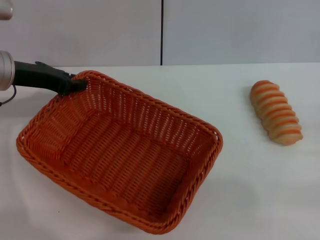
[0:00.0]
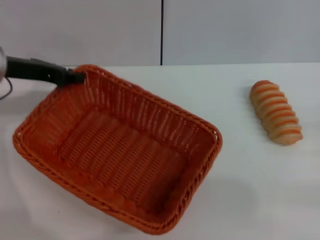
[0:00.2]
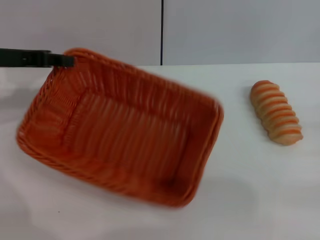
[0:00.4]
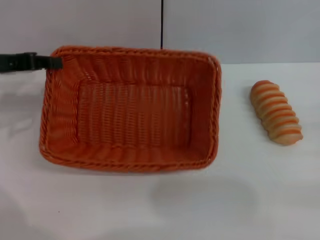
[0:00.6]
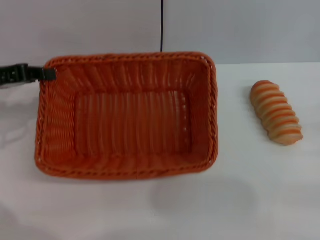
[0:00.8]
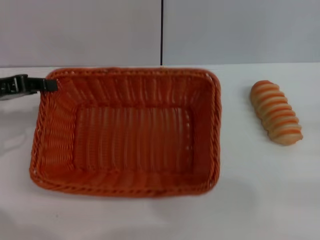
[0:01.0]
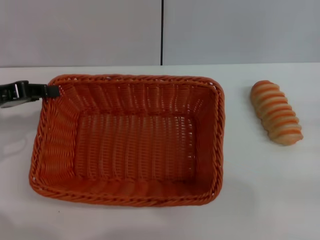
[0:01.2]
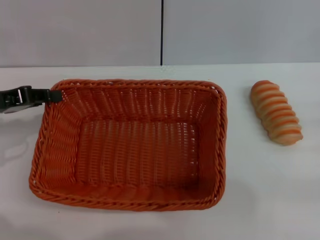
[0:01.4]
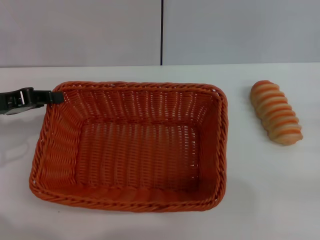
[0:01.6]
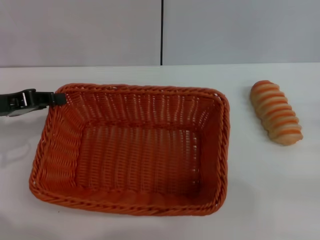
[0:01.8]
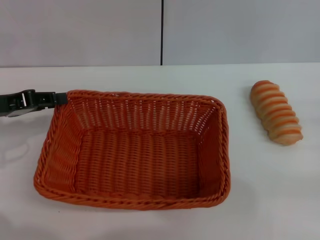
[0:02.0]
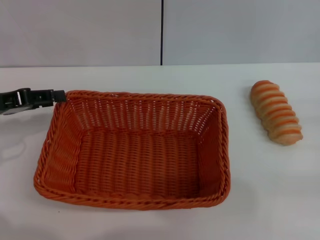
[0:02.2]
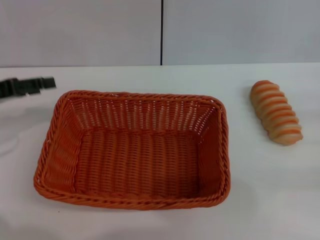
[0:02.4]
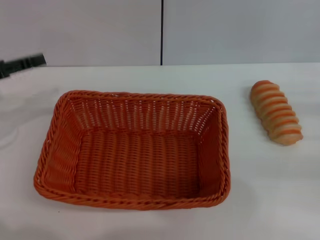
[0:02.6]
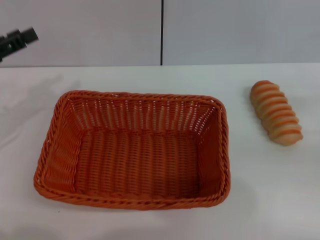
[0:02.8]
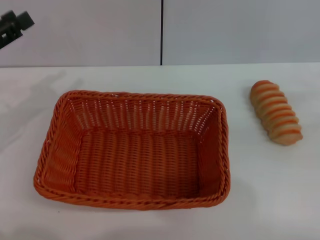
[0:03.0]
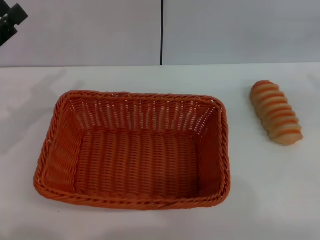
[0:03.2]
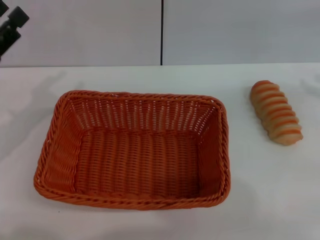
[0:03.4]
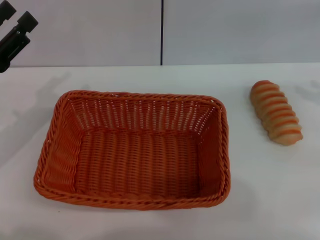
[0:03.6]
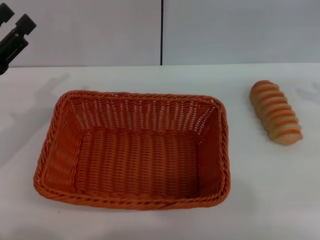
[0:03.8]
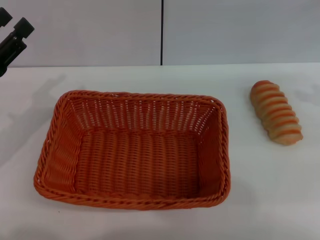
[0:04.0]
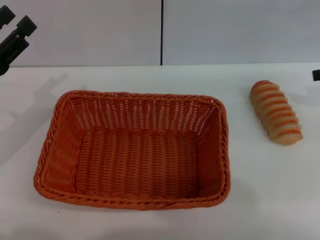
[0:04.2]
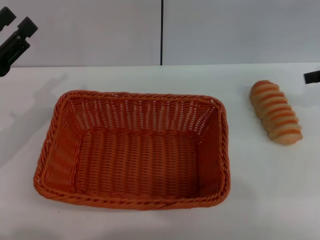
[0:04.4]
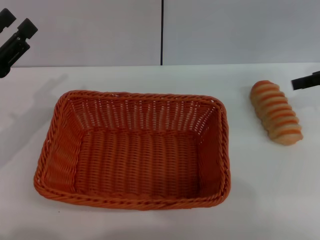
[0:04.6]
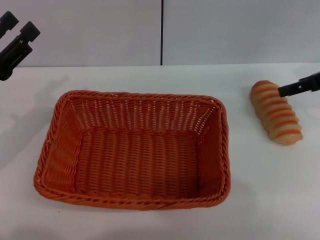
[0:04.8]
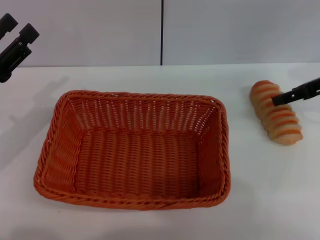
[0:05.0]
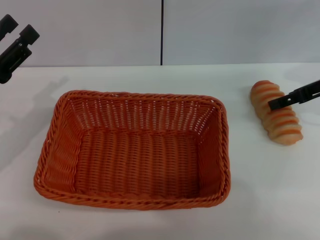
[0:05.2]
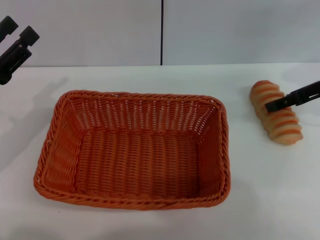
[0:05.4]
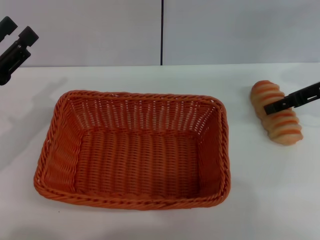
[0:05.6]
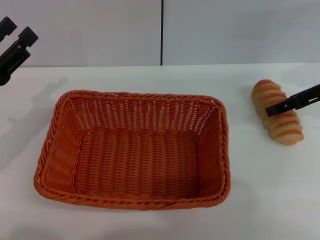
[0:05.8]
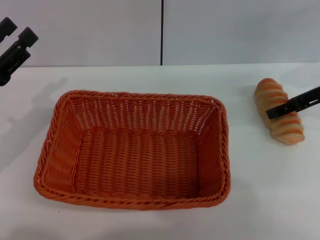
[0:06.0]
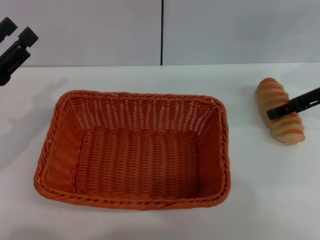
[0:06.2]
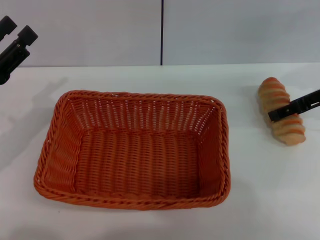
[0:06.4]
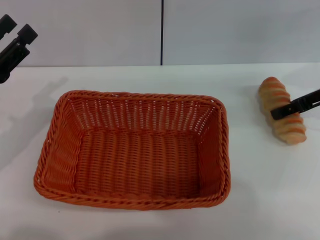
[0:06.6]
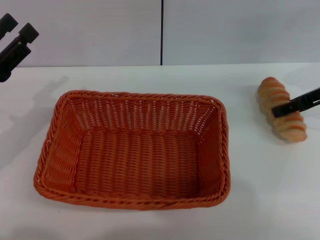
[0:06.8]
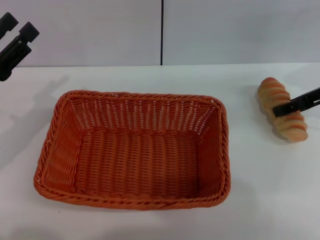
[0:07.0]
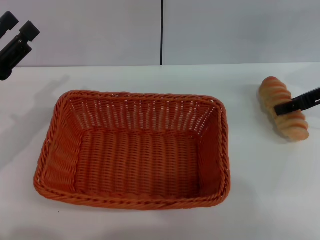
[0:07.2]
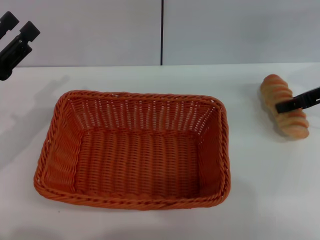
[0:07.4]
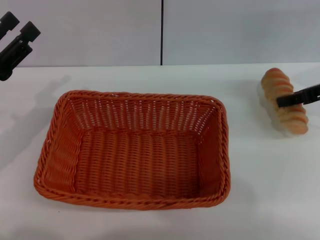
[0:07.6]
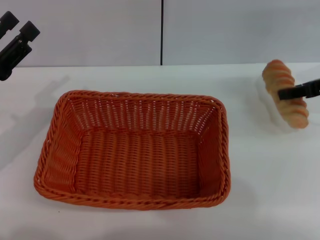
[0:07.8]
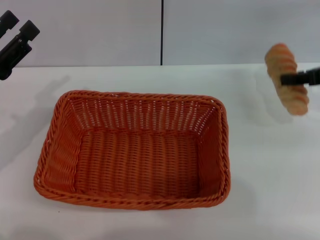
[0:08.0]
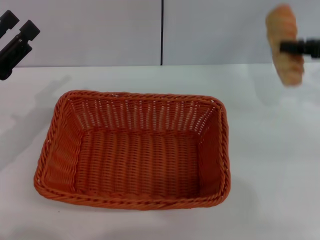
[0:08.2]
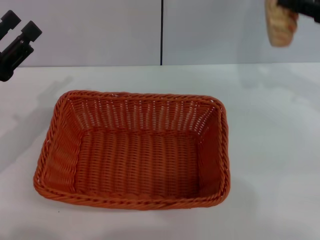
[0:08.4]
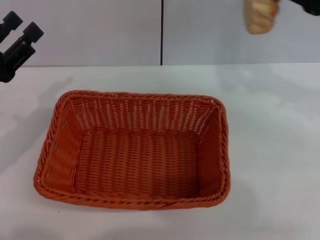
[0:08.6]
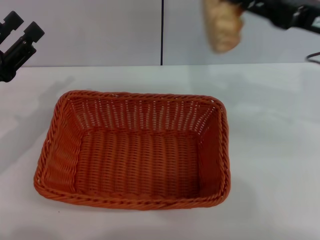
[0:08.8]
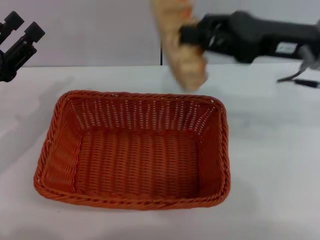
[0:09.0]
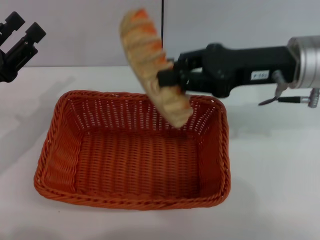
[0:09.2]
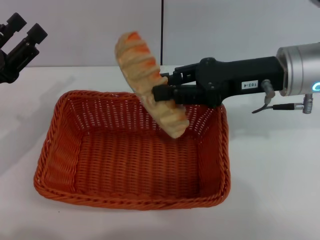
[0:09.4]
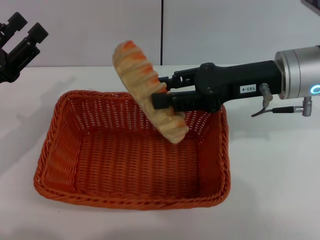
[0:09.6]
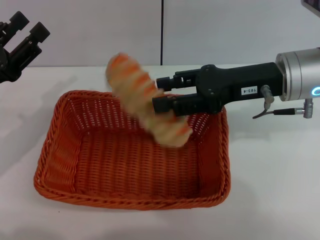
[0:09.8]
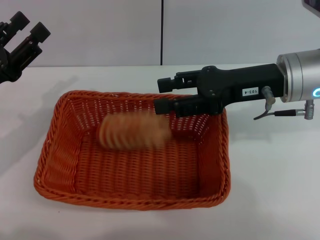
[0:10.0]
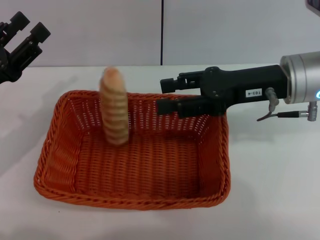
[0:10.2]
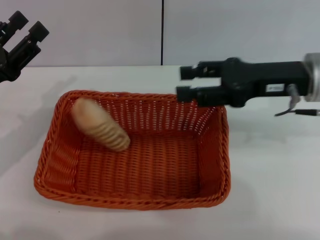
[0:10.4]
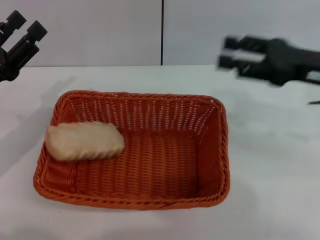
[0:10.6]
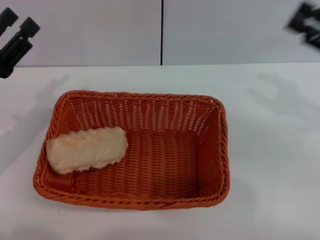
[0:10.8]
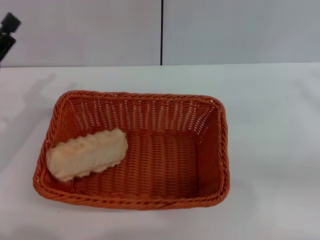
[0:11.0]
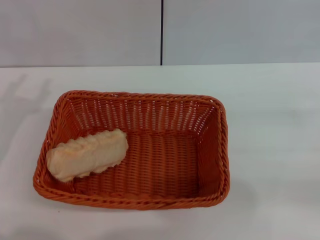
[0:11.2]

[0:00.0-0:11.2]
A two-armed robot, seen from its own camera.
Step, 0:00.6 to 0:03.6: Place the light basket in the center of view with the left gripper.
Step, 0:03.8 to 0:07.6: Pick up the long bread with the right gripper.
Step, 0:07.8 to 0:10.6: Place the long bread into the light basket with the right gripper.
0:00.0 to 0:01.6: The left gripper shifts approximately 10 cm backward and to the left.
0:01.6 to 0:03.2: The right gripper shifts about 15 cm upward and forward. The left gripper opens up.
0:03.2 to 0:04.8: The right gripper moves to the left and forward, about 10 cm, and opens up.
0:04.8 to 0:06.4: The grippers stay close to where they were, moving slightly.
0:06.4 to 0:08.0: The right gripper closes up.
0:08.0 to 0:09.6: The right gripper goes some 15 cm to the left.
0:09.6 to 0:11.2: The right gripper moves to the right and backward, some 25 cm, and opens.
